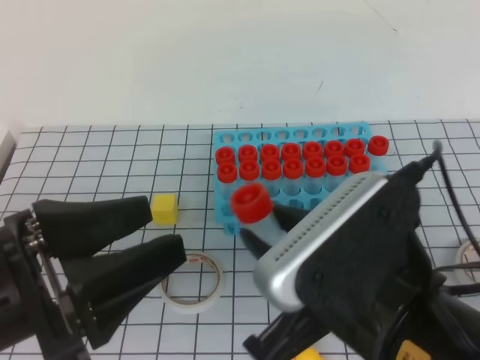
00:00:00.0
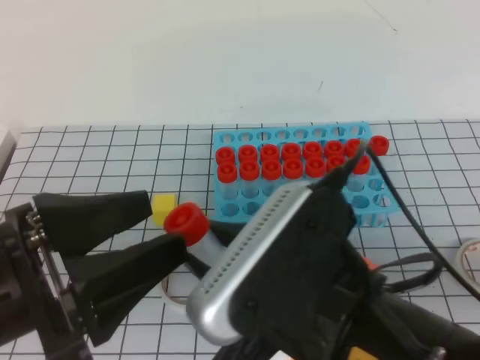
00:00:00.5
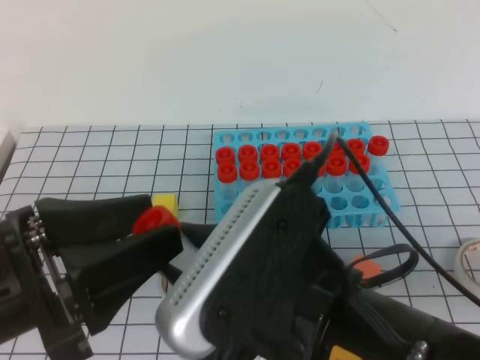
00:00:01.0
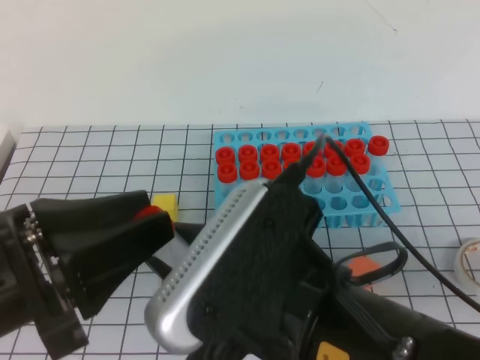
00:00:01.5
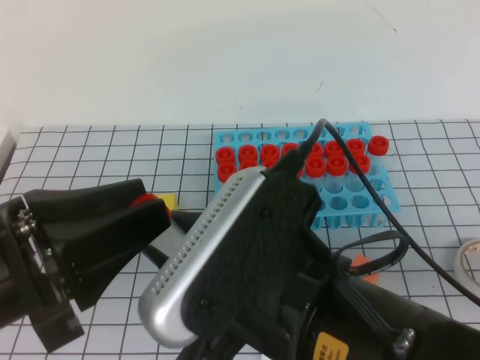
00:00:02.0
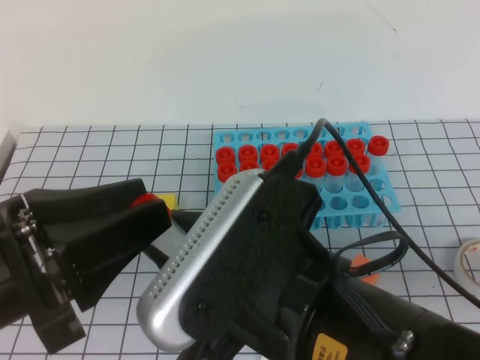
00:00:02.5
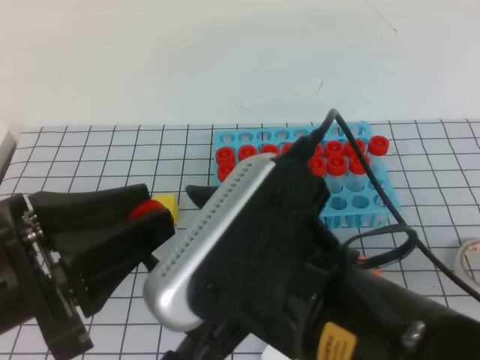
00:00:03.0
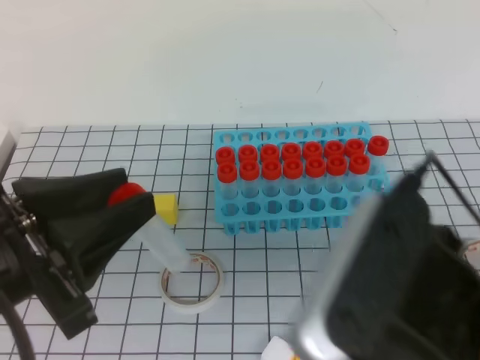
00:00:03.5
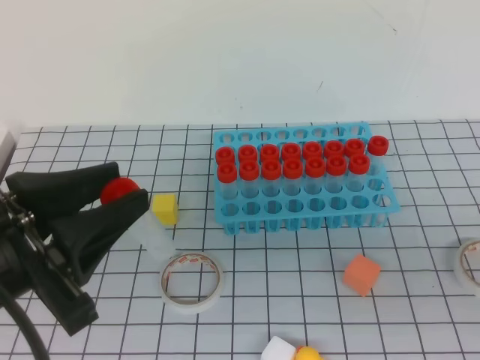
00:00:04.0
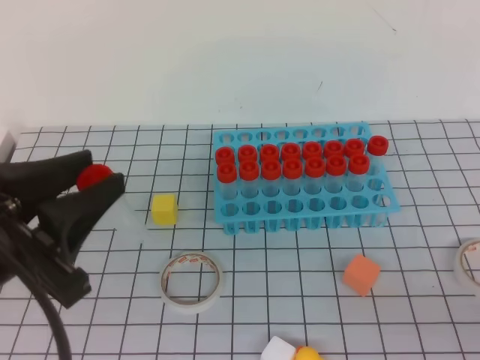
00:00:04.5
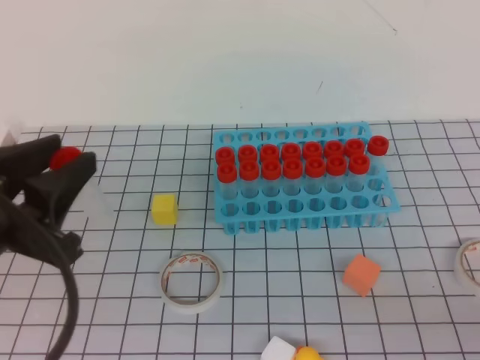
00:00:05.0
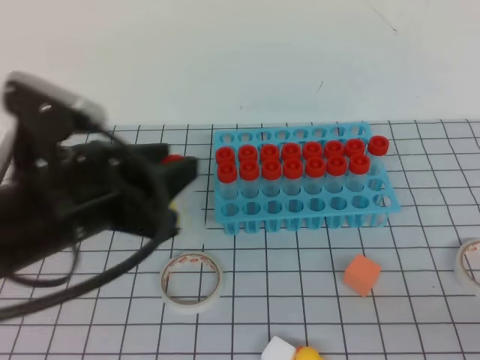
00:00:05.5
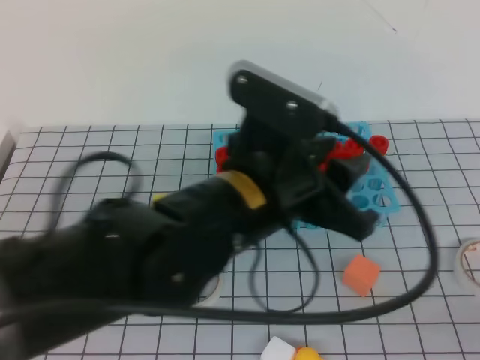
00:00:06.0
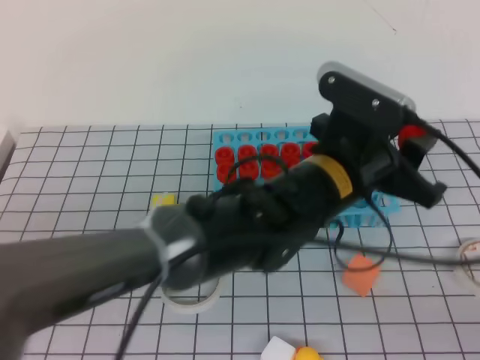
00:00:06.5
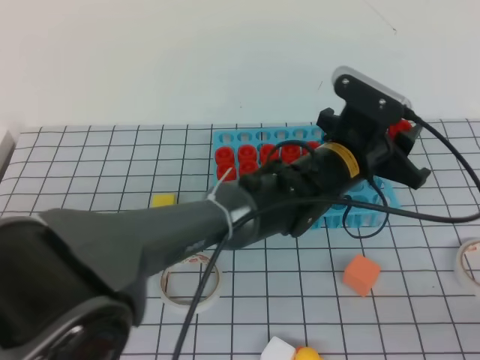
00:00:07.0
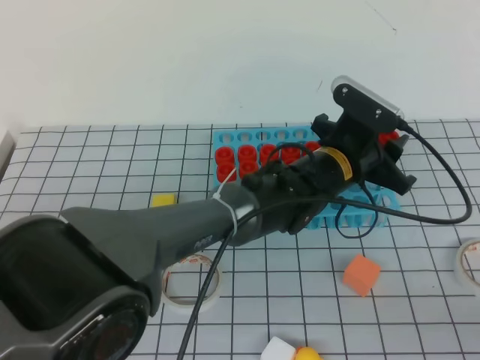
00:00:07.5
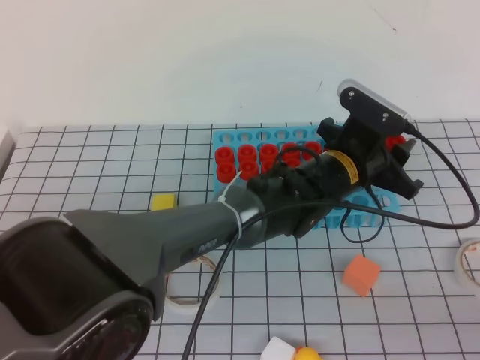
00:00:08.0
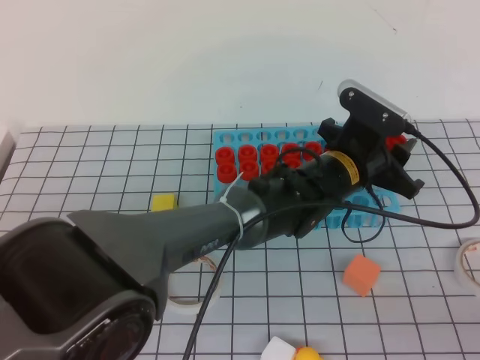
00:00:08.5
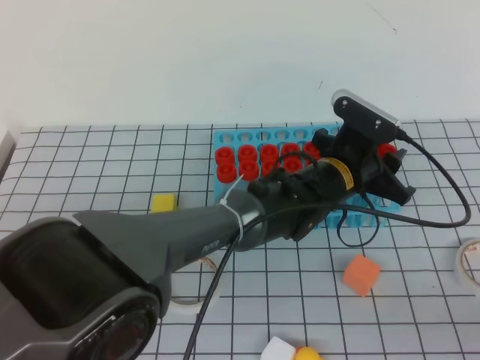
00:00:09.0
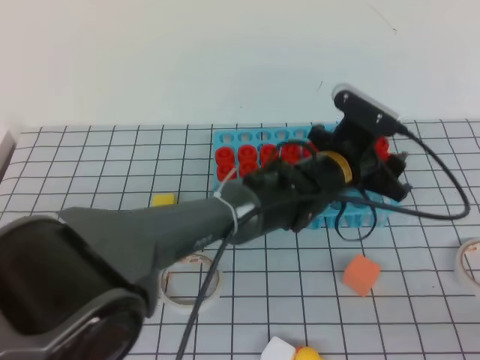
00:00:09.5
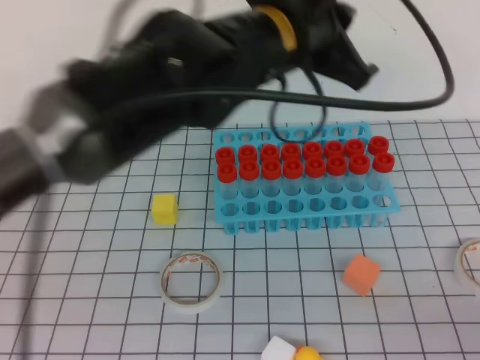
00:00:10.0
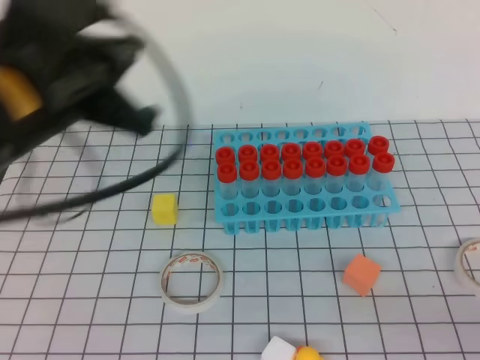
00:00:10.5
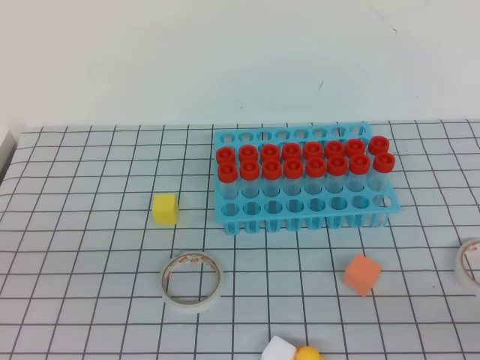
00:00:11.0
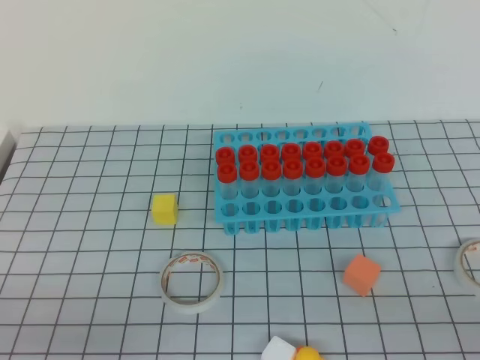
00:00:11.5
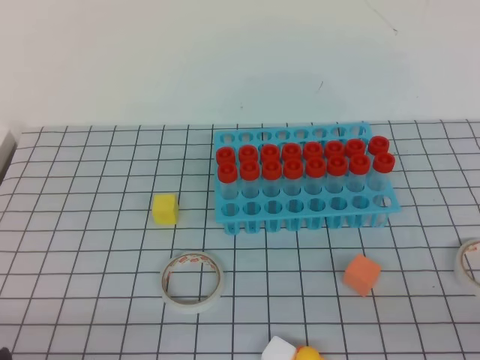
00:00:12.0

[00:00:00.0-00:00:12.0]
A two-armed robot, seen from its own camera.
00:00:00.0 to 00:00:02.0: The right gripper ends up approximately 5 cm from where it was.
00:00:02.0 to 00:00:04.0: The right gripper is displaced to the right by some 20 cm, and closes its fingers.
00:00:04.0 to 00:00:06.0: The right gripper is displaced to the right and downward by approximately 10 cm, while the left gripper goes some 20 cm to the right and forward.
00:00:06.0 to 00:00:08.0: The left gripper shifts approximately 20 cm forward, to the right and downward.
00:00:08.0 to 00:00:10.0: The left gripper heads upward and to the left, covering approximately 20 cm, and closes up.
00:00:10.0 to 00:00:12.0: The left gripper goes approximately 40 cm to the left, backward and downward.
